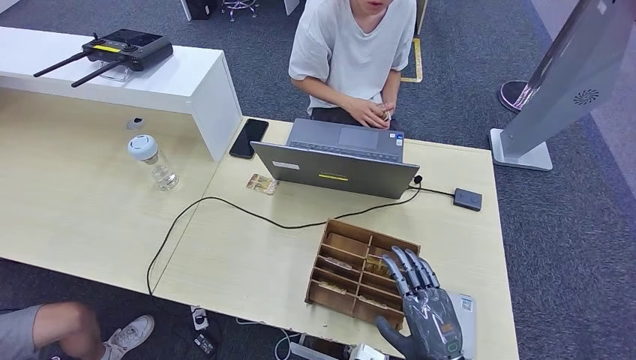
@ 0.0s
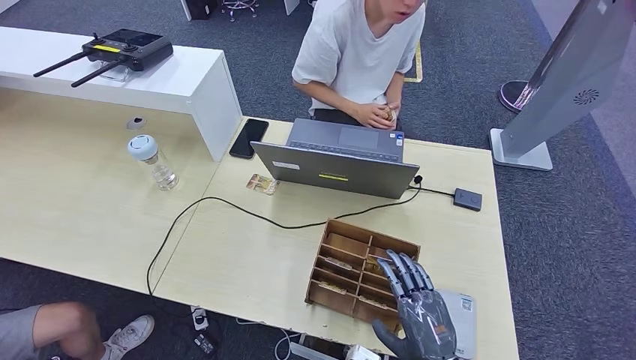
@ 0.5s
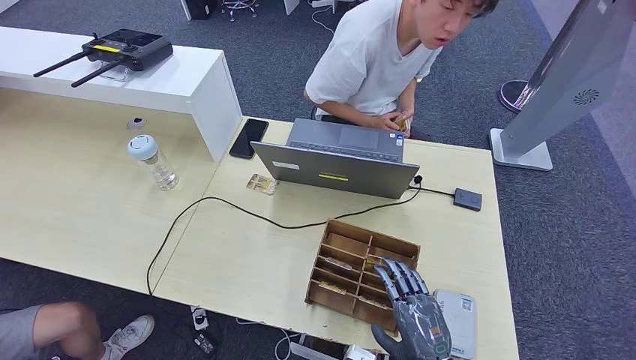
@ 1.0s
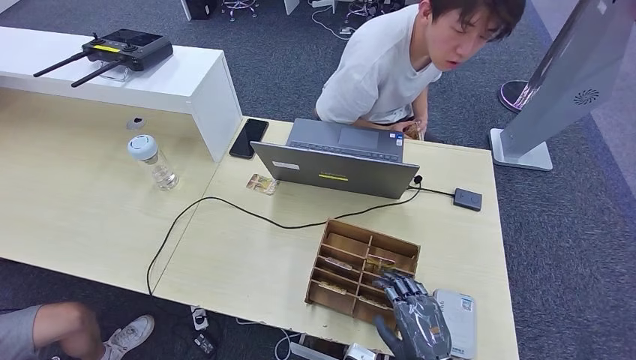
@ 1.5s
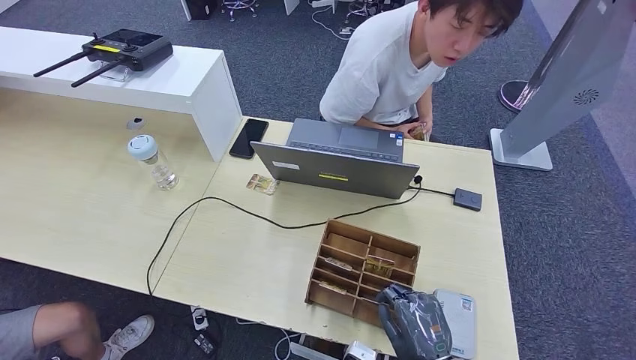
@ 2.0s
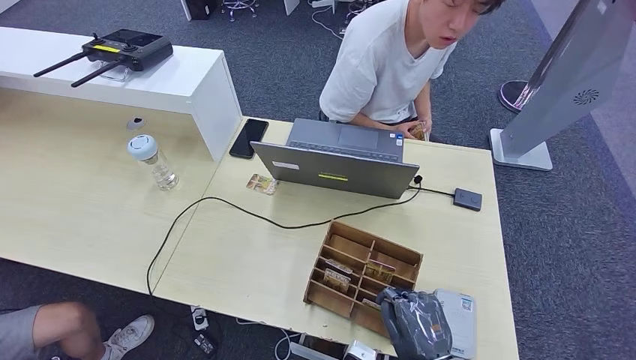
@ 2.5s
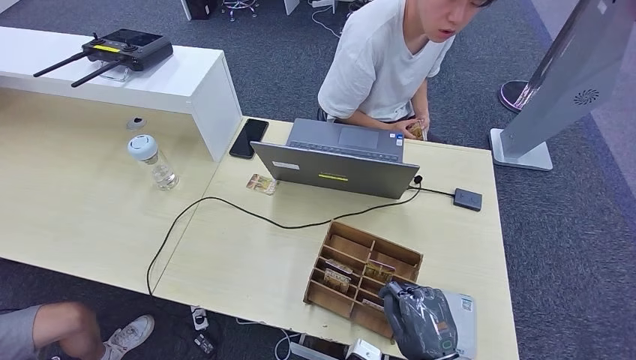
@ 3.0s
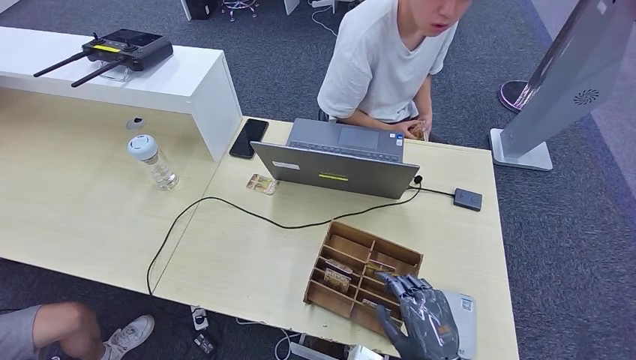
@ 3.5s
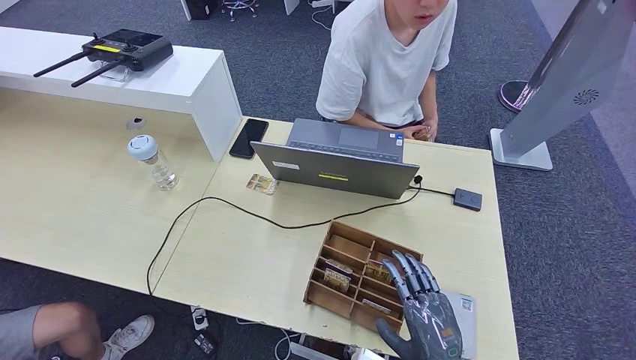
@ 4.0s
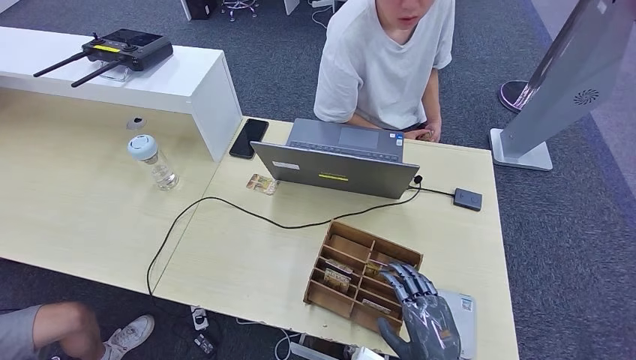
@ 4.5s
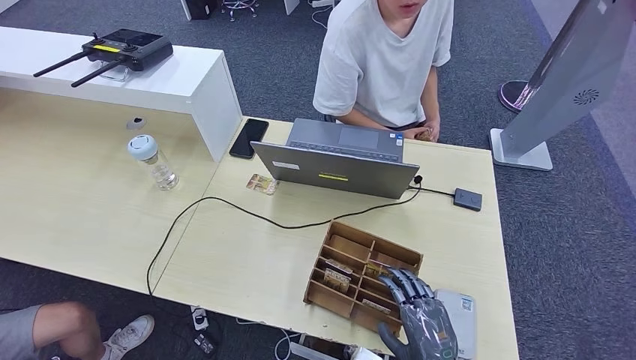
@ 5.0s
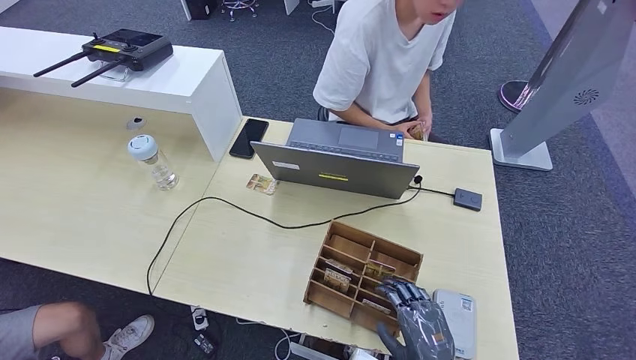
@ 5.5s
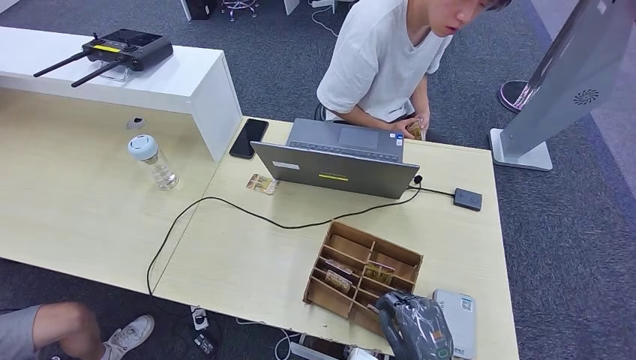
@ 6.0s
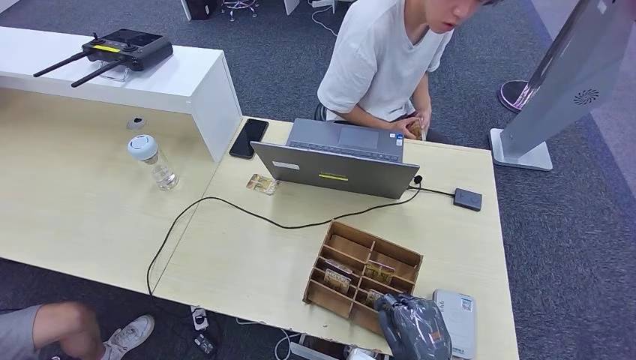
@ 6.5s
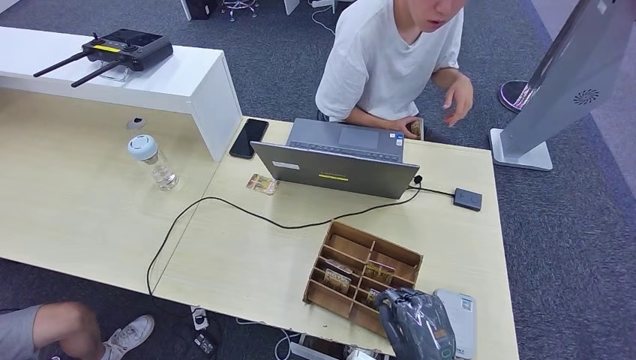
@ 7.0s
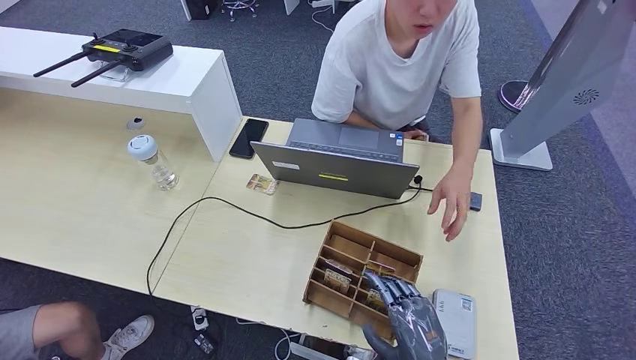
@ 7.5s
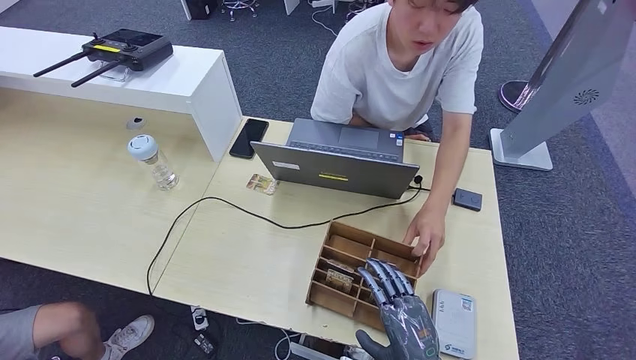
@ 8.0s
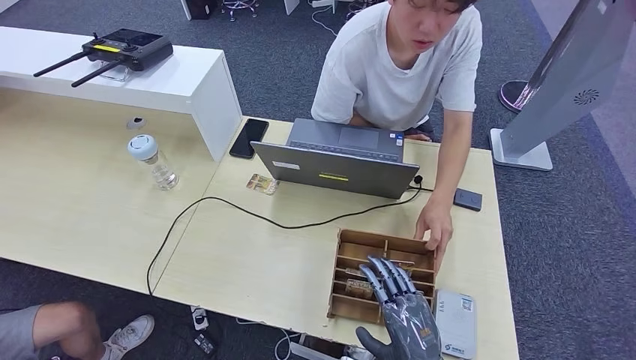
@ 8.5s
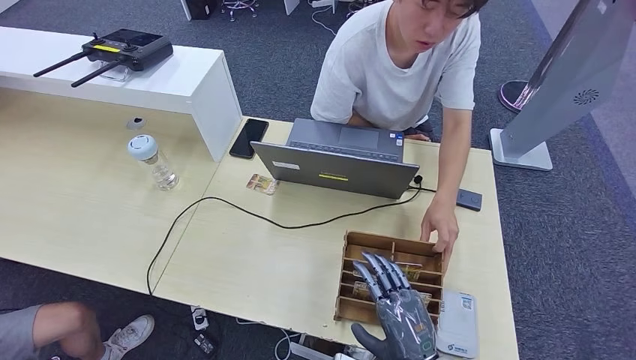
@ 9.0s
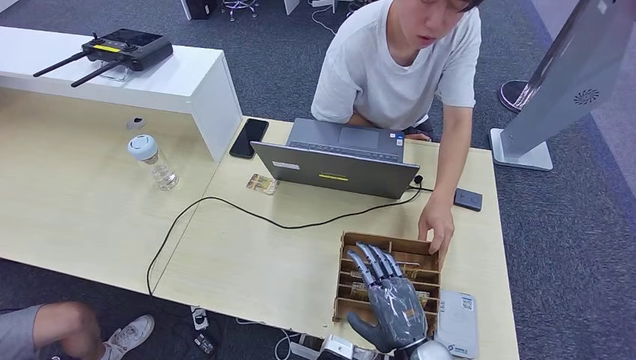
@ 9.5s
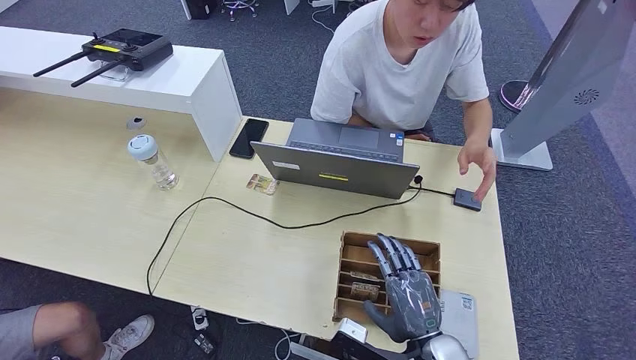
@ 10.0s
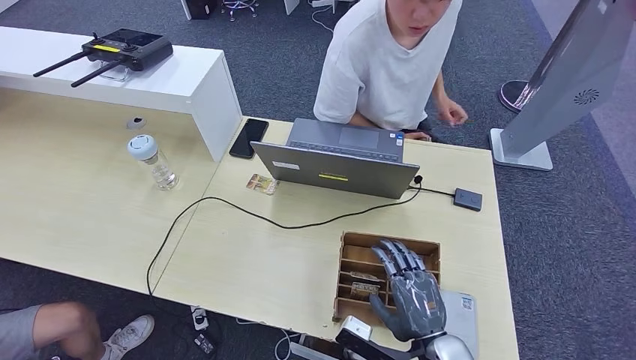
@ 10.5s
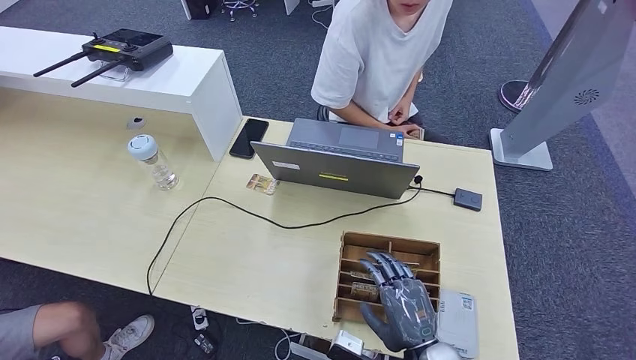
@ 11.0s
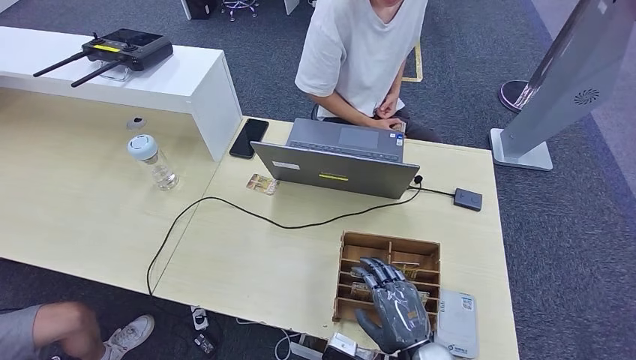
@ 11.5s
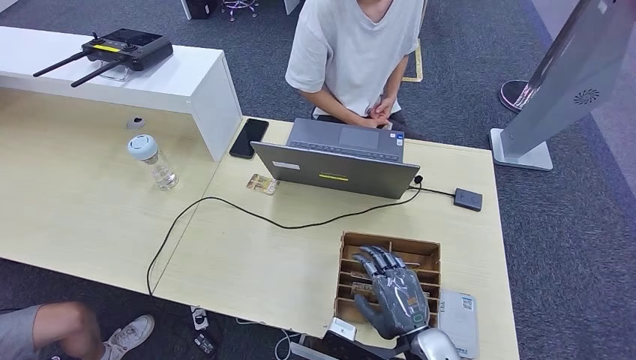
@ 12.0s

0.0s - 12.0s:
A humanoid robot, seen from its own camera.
0.0s - 12.0s: The hands stay close to where they were, moving slightly.

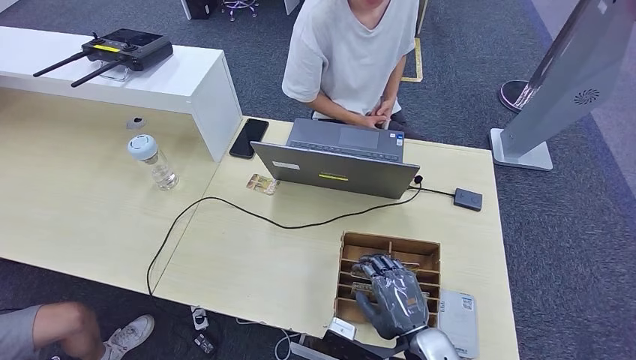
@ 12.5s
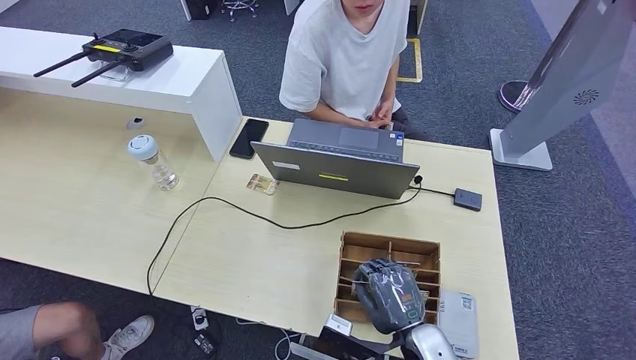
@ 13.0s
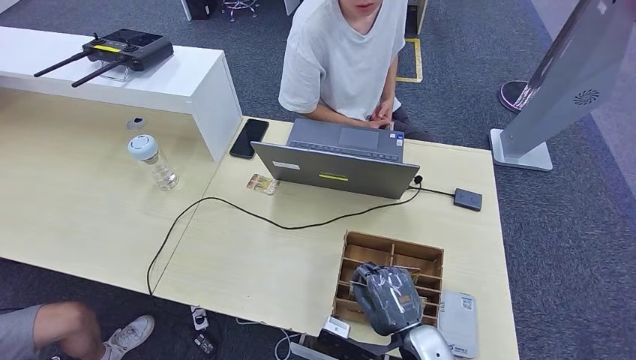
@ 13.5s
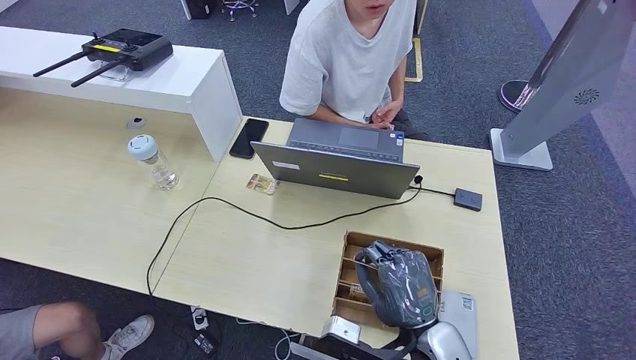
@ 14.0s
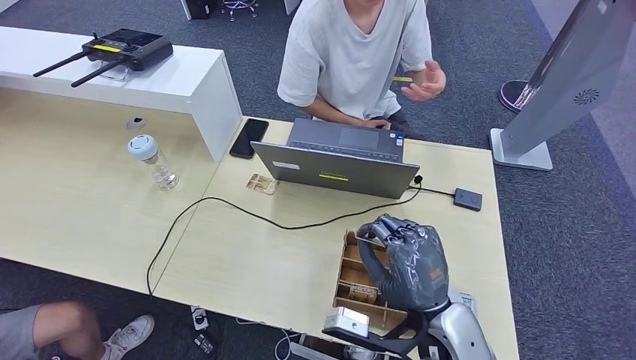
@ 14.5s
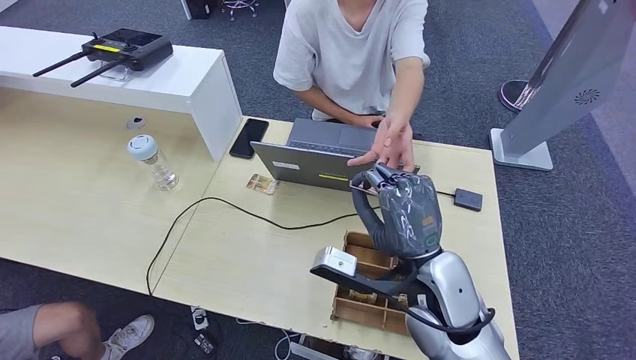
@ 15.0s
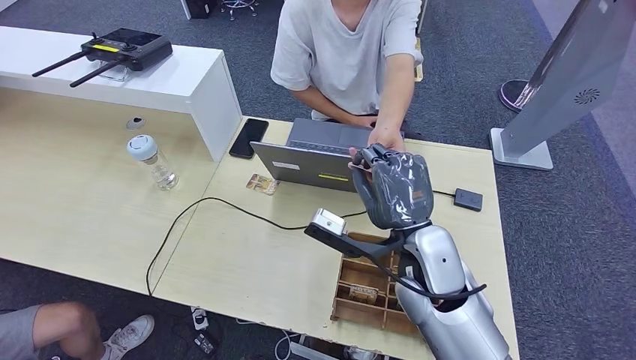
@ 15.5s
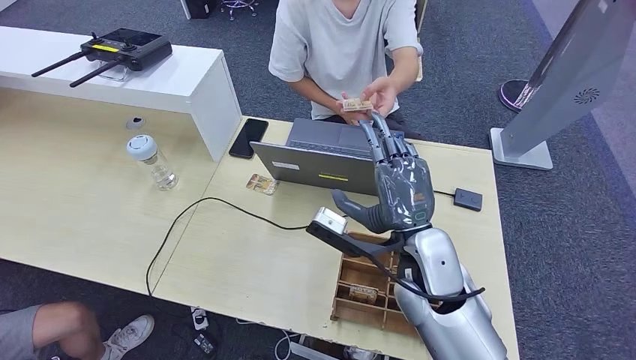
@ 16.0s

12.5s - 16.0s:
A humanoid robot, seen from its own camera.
Step, 12.5s - 14.0s: Pick up the room key from the key card box.
Step, 14.5s - 16.0s: Hand the room key to the person.
12.5s - 14.5s: The right hand goes approximately 10 cm upward.
14.5s - 16.0s: The left hand shifts by roughly 5 cm, while the right hand moves forward, approximately 10 cm.
